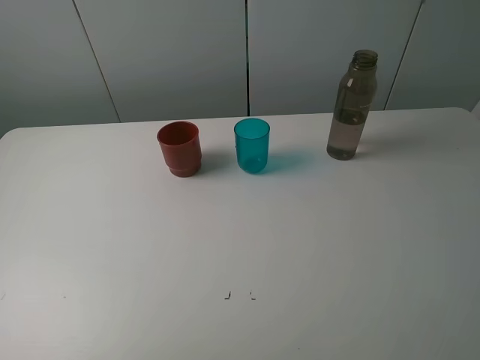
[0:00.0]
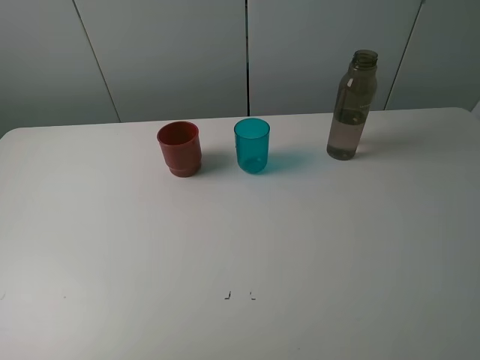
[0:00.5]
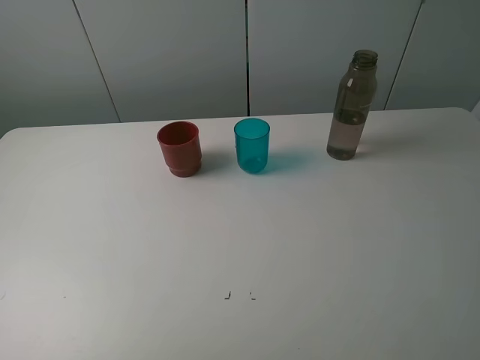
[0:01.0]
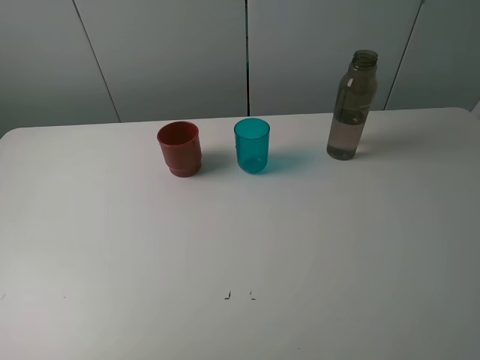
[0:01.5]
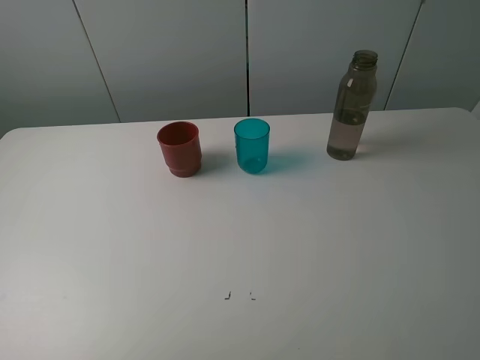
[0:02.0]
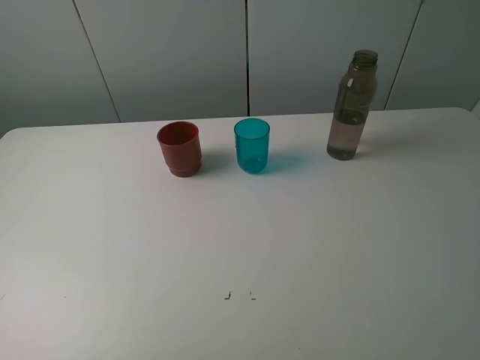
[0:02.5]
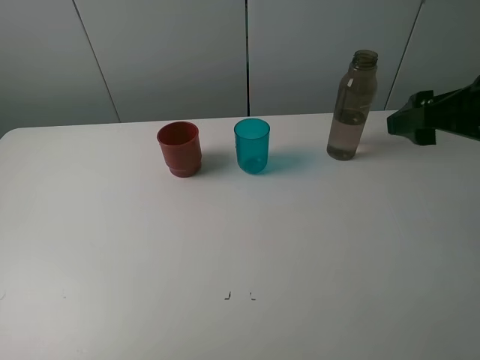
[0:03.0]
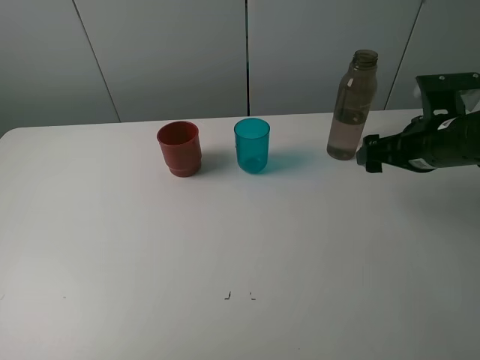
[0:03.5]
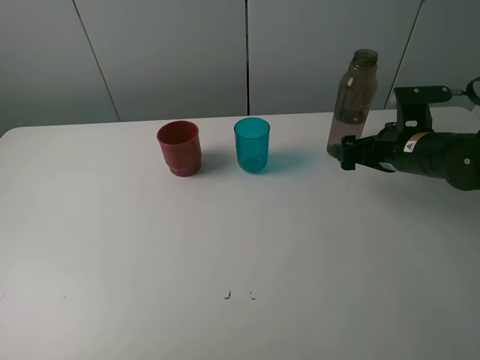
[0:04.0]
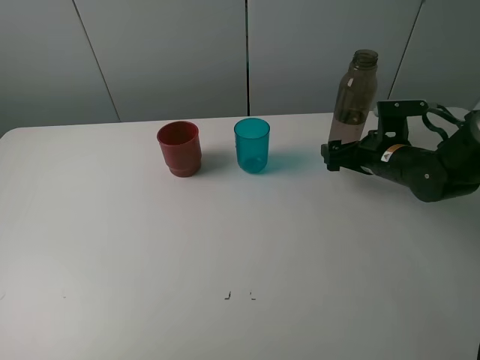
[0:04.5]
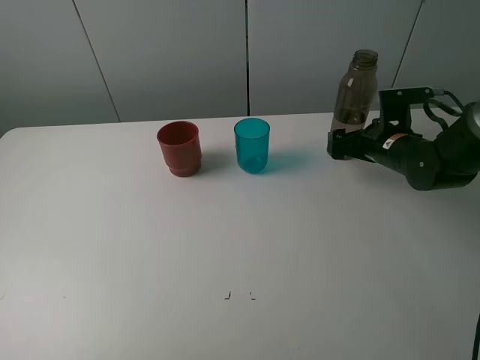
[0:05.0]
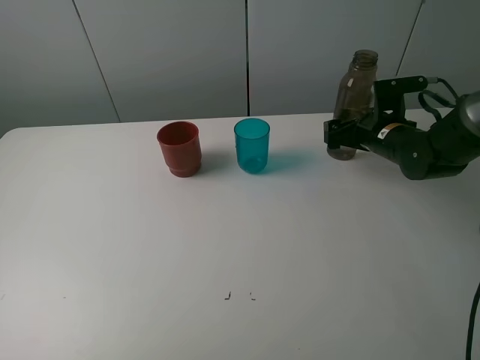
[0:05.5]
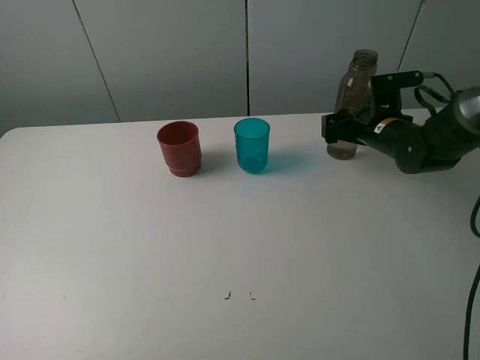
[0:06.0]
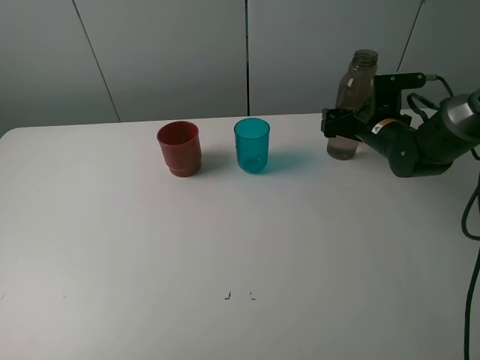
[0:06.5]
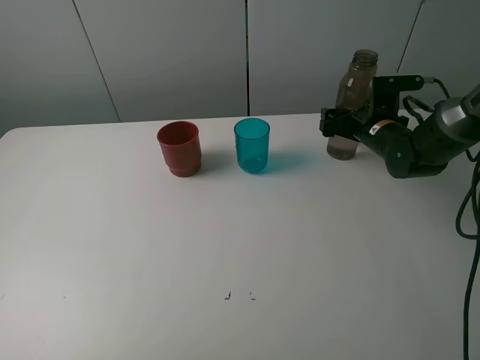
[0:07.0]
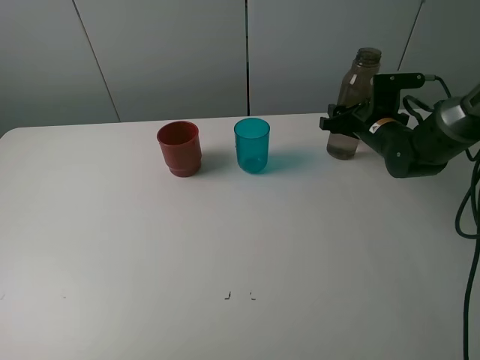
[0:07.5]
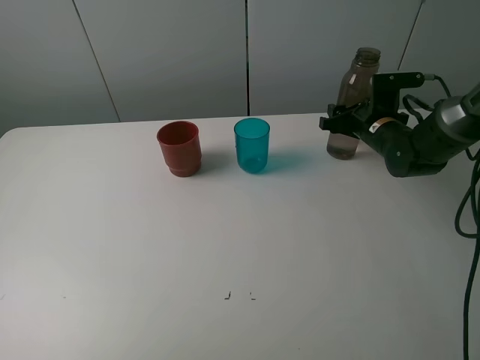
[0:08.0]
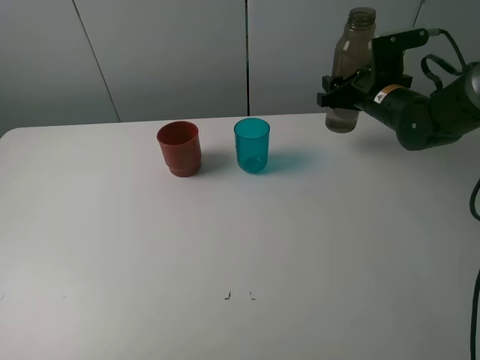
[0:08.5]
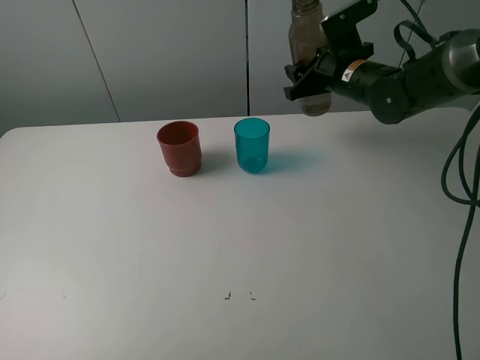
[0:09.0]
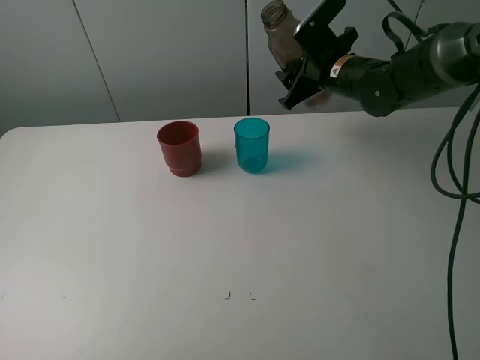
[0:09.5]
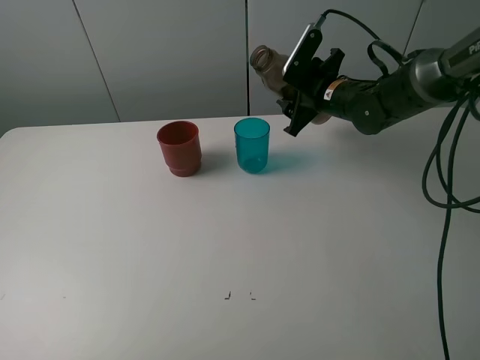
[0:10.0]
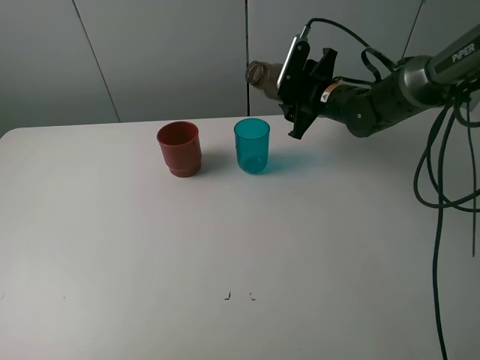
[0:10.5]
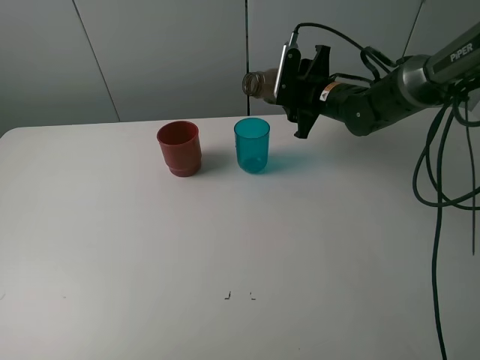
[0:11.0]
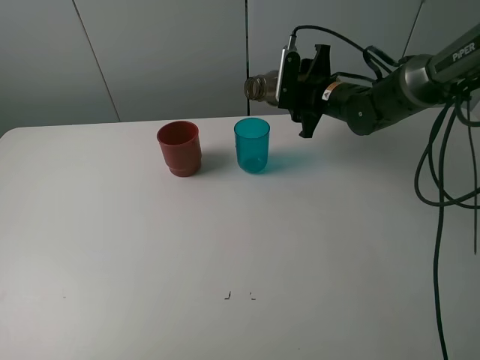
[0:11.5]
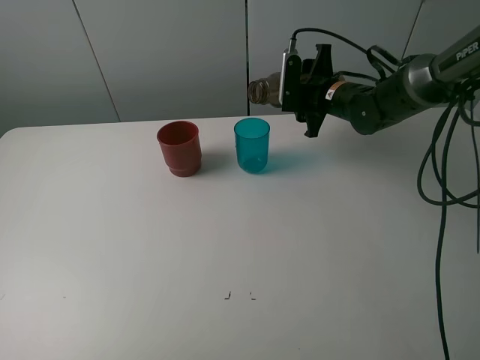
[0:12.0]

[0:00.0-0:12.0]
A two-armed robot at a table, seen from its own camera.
Task of the whole recording: pick up the bottle and pour water into the cup, then pick up the cup containing water and pour it into another cup.
Step, 0:00.0 to 0:07.5: Grasp the brown bottle with the right gripper.
0:00.0 to 0:02.0: Both grippers stay put.
0:02.0 to 0:04.0: The right gripper is displaced forward and downward by approximately 35 cm.
0:04.0 to 0:06.0: The right gripper moves forward, approximately 5 cm.
0:06.0 to 0:08.0: The right gripper closes up.
0:08.0 to 0:10.0: The right gripper goes approximately 10 cm to the left and upward.

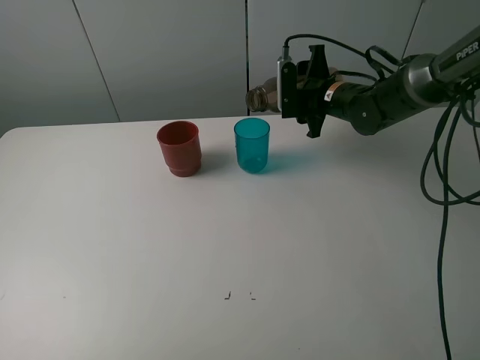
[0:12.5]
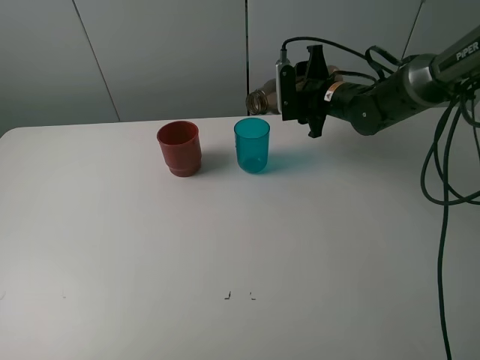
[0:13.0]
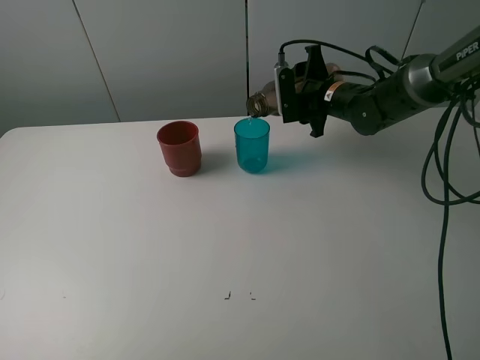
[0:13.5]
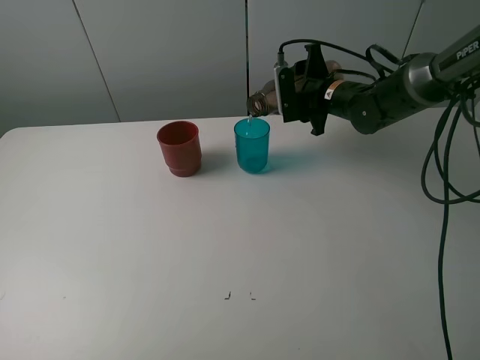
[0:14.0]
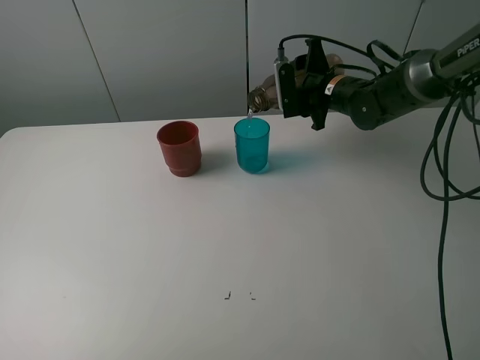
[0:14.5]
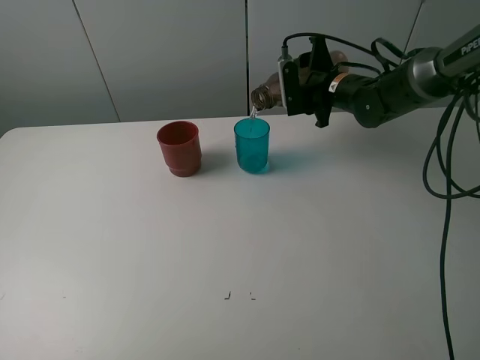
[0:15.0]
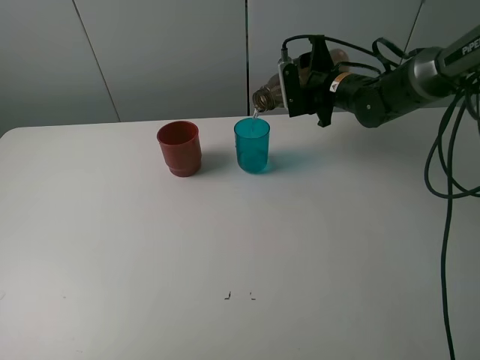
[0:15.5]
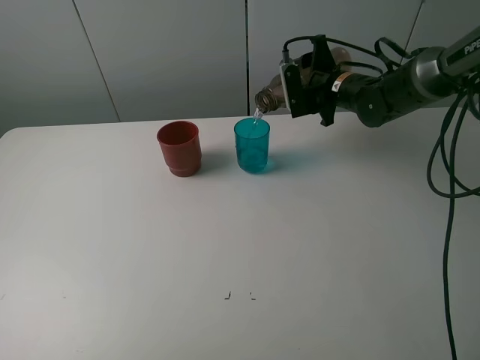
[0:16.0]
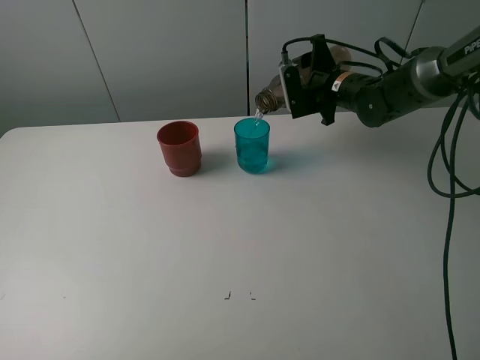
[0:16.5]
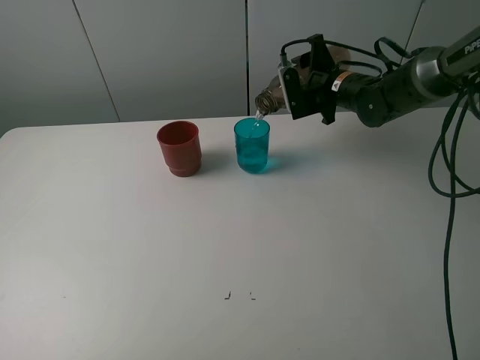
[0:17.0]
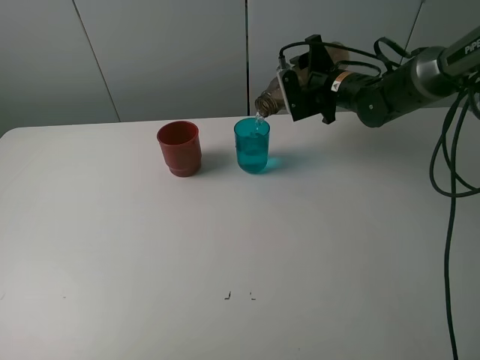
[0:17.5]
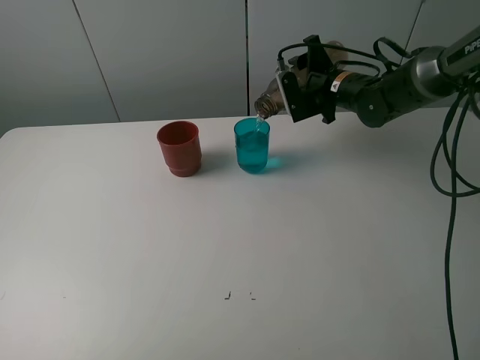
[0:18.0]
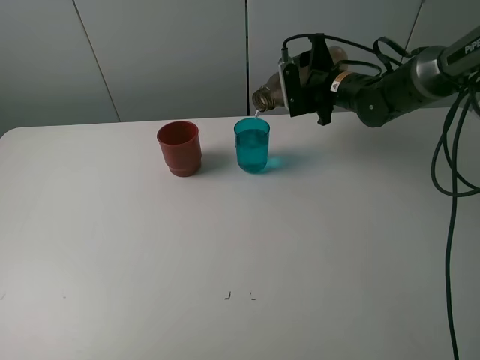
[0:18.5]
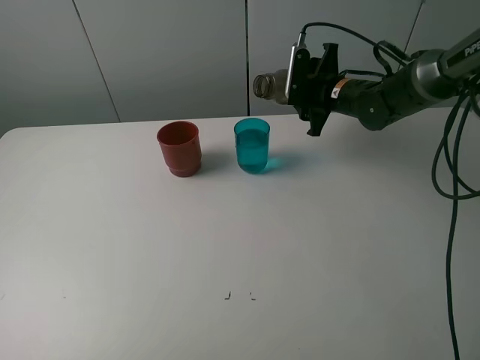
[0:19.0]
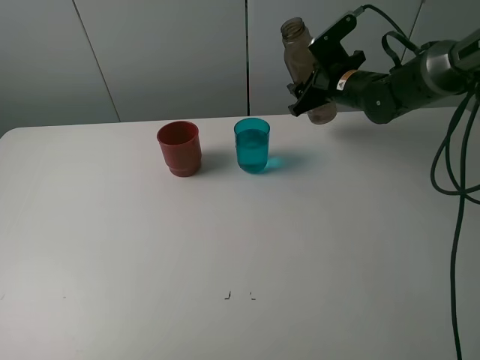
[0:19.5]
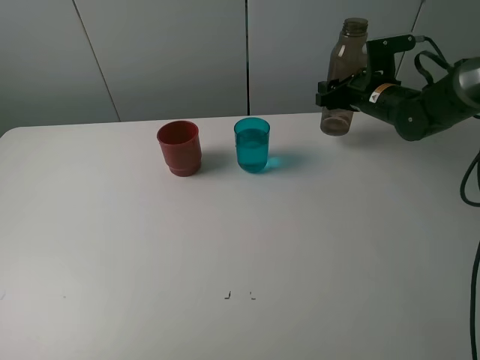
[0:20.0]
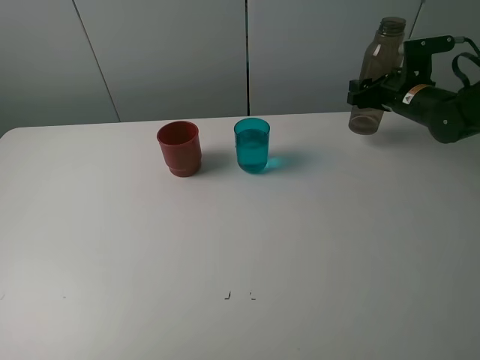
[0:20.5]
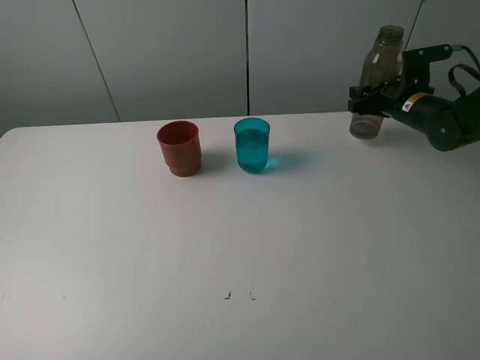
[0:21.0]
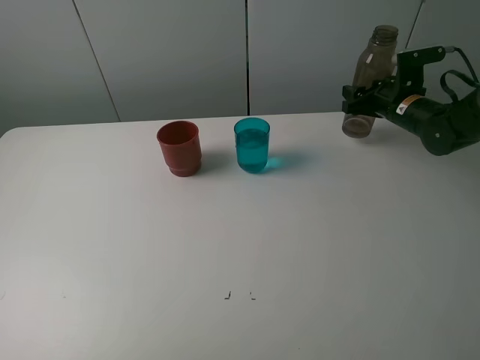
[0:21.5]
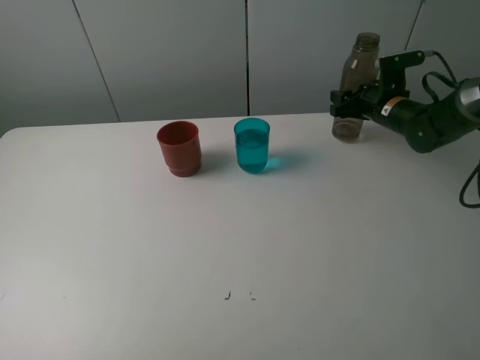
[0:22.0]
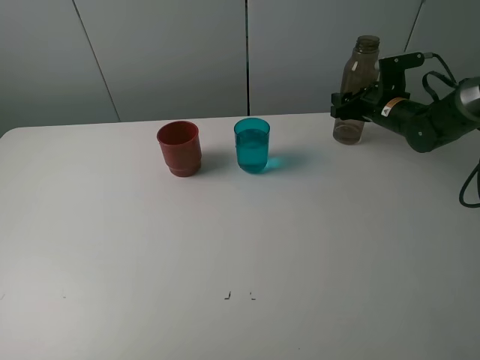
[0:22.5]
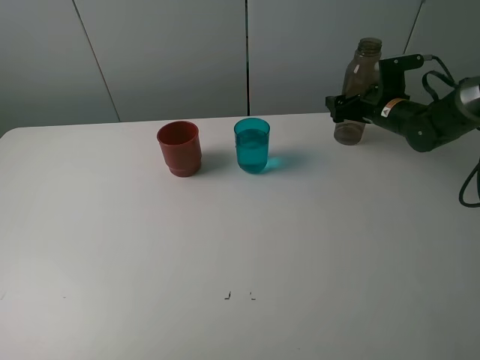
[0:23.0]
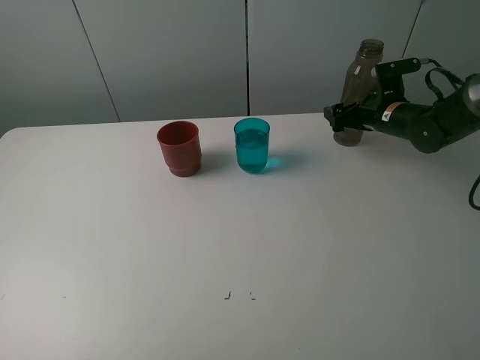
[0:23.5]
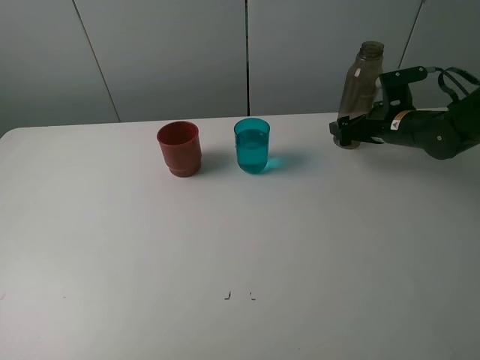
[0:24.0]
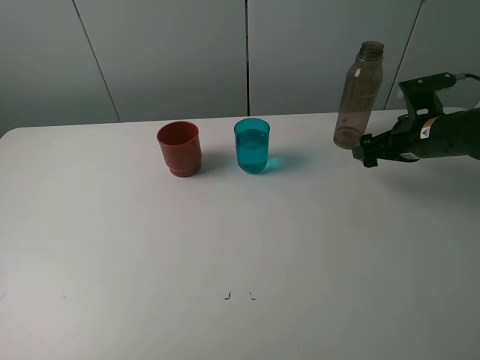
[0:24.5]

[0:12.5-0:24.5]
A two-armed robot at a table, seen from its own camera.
Task of the whole recording: pick up the bottle and pour water into the cup, then pick up the cup containing water and pour it into another cup.
Step, 0:12.5 to 0:18.5: Pour water from brown bottle to blue cup with the right gripper.
Step, 0:19.0 to 0:23.0: Place the brown bottle with the right gripper.
0:12.5 to 0:18.5: The grippers stay close to where they were, moving slightly.
0:18.5 to 0:20.5: The right gripper goes approximately 10 cm to the right.
0:20.5 to 0:22.5: The grippers stay close to where they were, moving slightly.
0:22.5 to 0:24.5: The right gripper heads backward, covering about 10 cm, and opens.

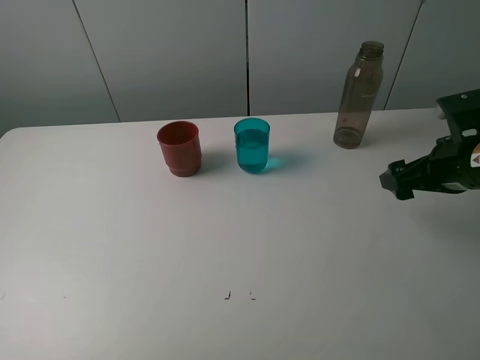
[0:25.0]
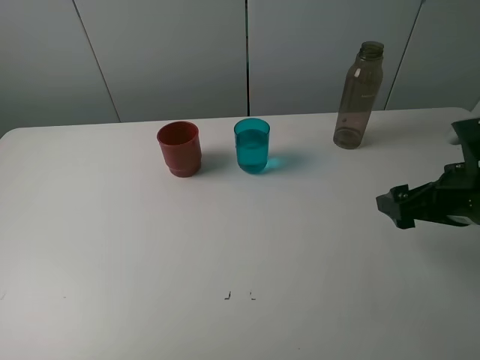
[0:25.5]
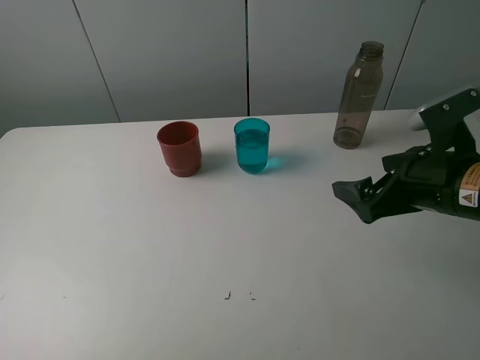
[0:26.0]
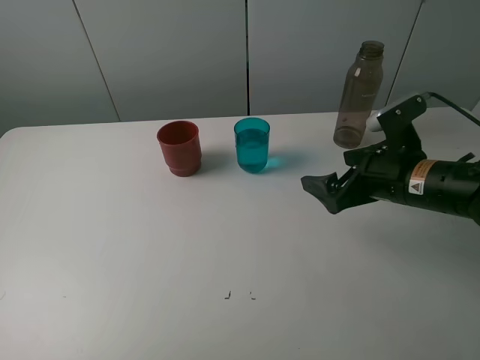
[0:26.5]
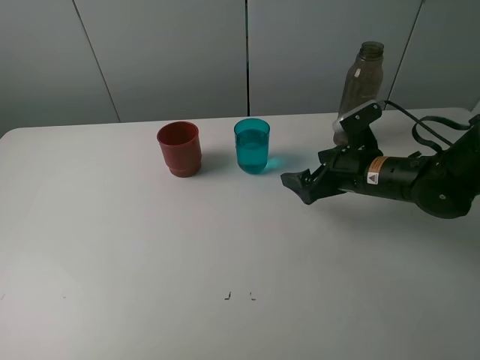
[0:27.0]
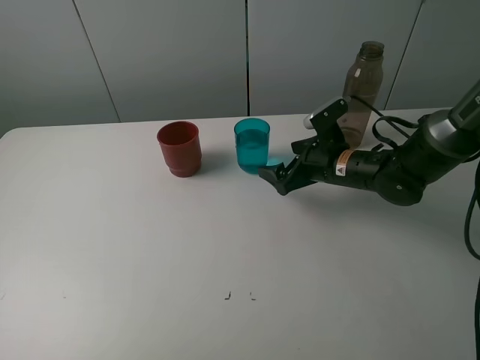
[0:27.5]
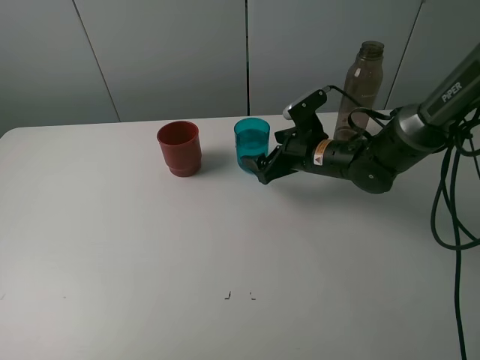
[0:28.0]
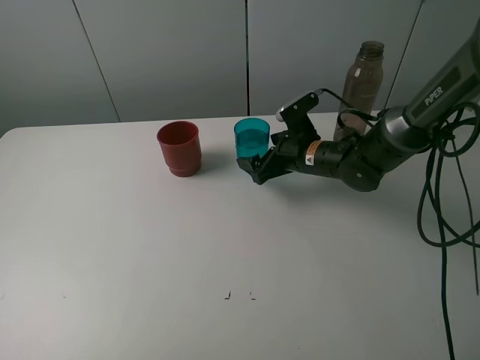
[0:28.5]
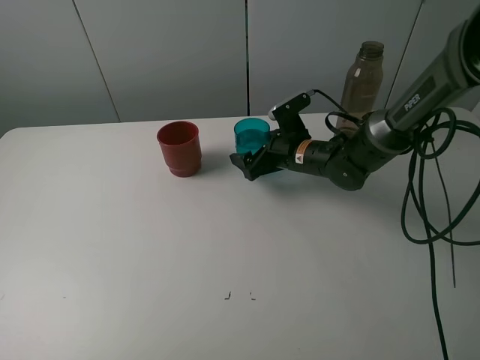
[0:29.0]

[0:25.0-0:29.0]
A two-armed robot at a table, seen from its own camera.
Task of the whole recording: pick up the bottle and pour water into the cup, then pick up the cup containing water and pour it into another cup.
0:25.0 to 0:27.0: The right gripper shifts about 15 cm to the left, downward and forward.
0:27.0 to 0:29.0: The right gripper is displaced to the left and forward by some 10 cm.
